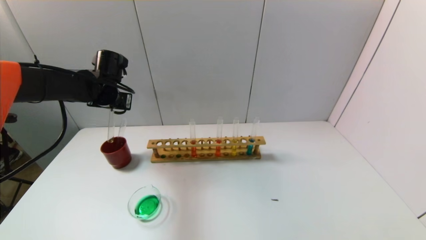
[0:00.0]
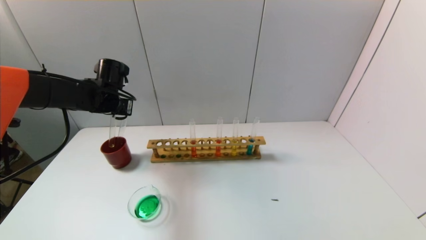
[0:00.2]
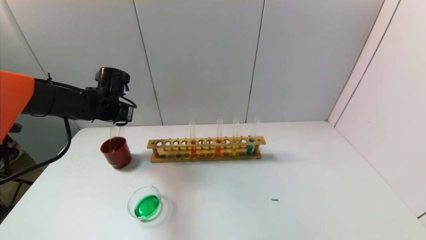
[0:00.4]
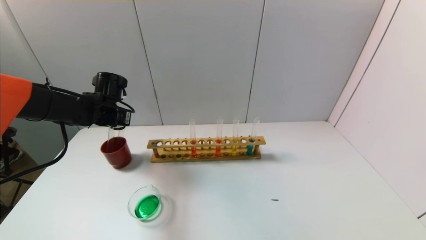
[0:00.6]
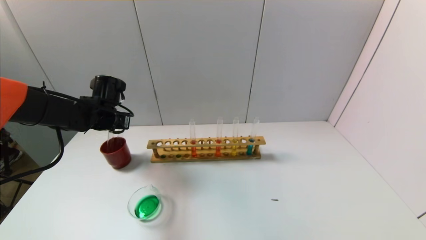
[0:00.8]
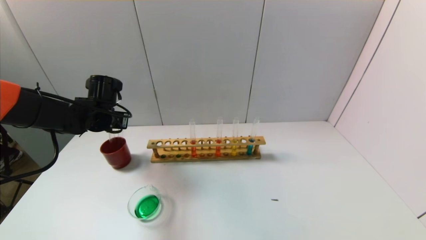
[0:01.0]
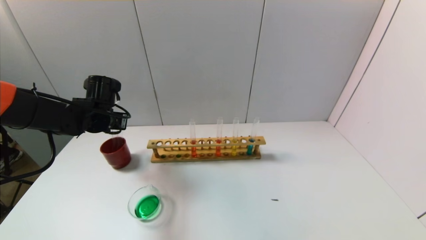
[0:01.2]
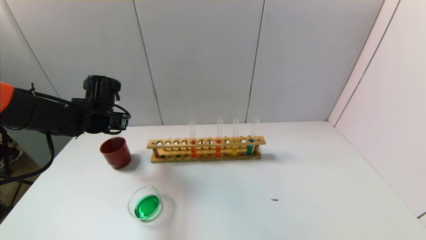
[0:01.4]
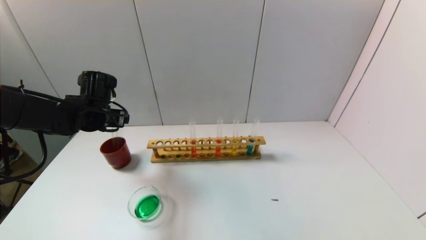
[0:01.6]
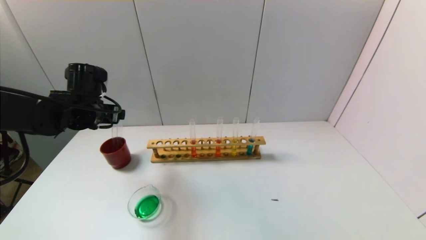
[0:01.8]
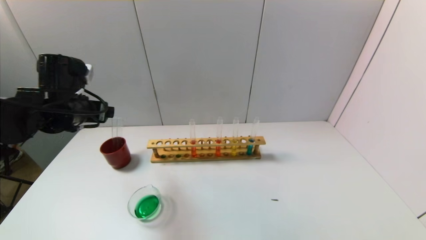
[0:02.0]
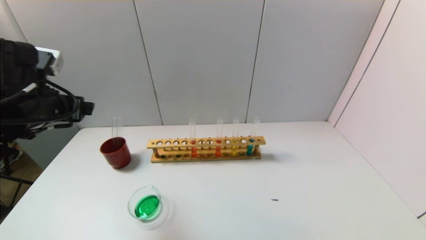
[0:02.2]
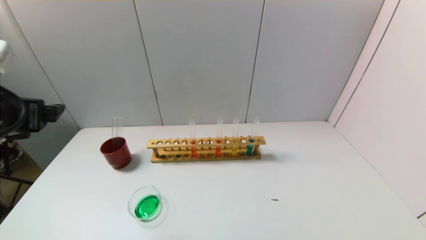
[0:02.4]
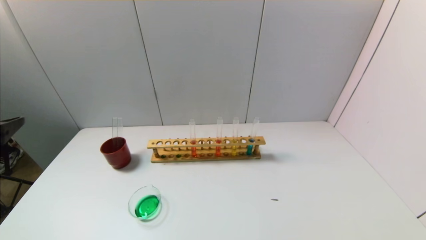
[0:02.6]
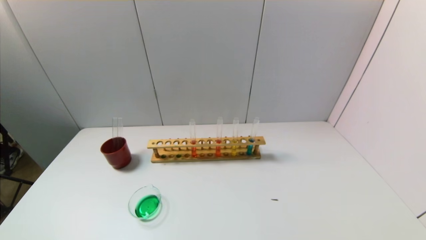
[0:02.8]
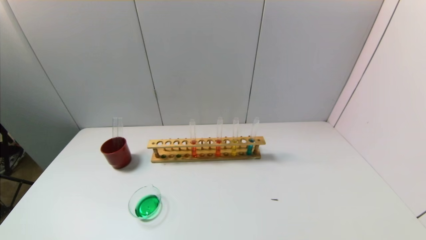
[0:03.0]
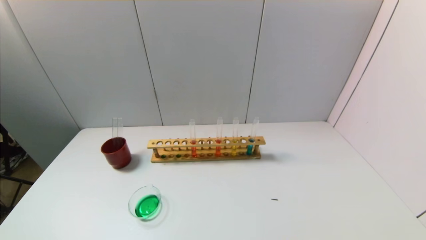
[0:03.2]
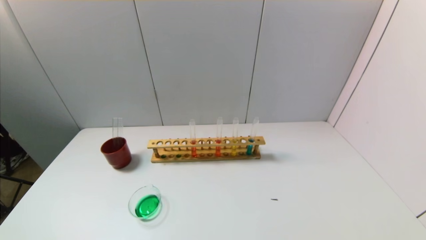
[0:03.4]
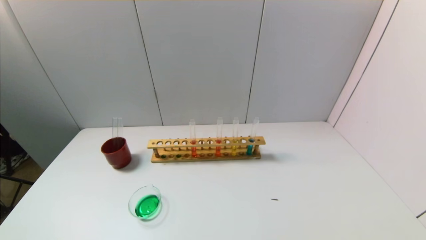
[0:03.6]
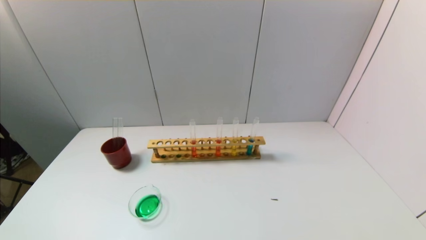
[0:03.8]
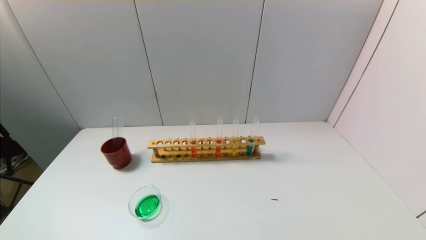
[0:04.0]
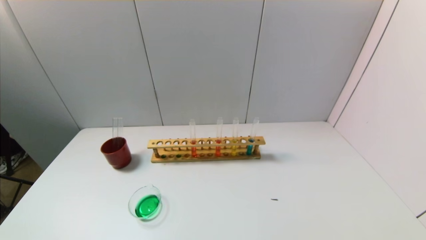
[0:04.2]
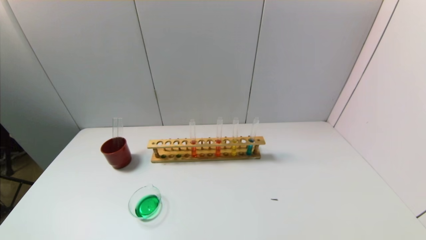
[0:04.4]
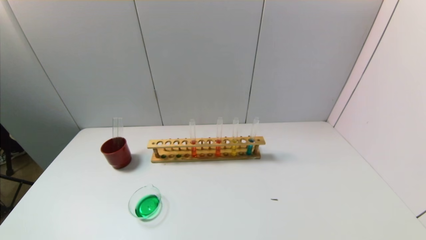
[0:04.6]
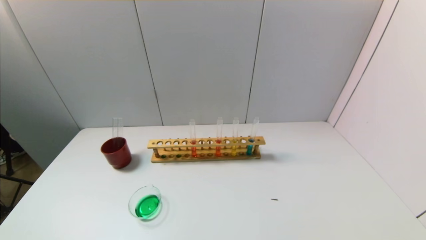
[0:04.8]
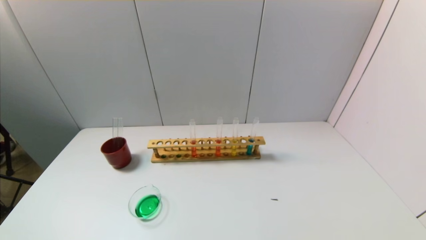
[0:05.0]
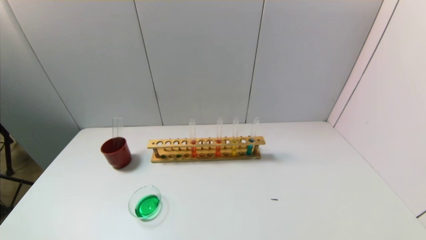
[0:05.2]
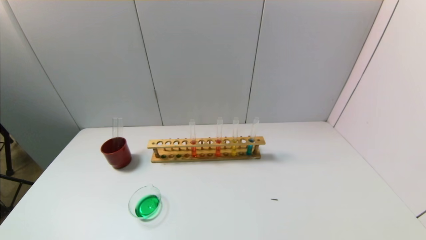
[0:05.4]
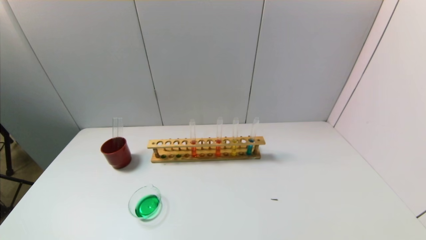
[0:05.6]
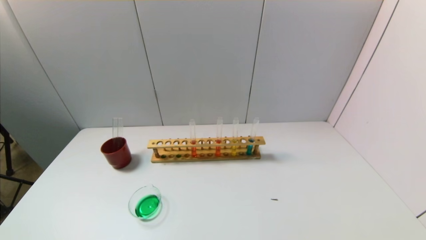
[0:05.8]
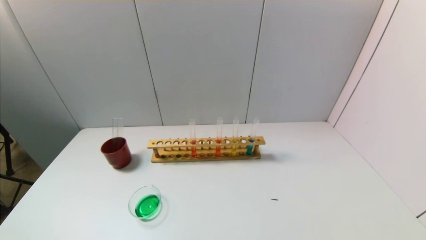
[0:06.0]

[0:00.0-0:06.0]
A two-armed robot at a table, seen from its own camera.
Task of the whole recording: pick up the test tube with yellow pigment and the test tube with blue pigment by grippers and pour them into the beaker.
0:00.0 to 0:01.6: The left gripper shifts by approximately 5 cm, and opens.
0:01.6 to 0:03.0: The left gripper heads backward, covering approximately 40 cm.
